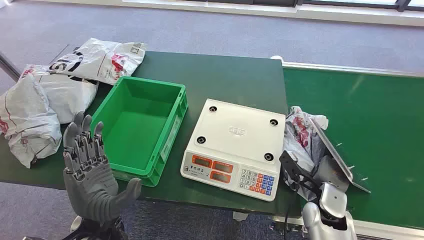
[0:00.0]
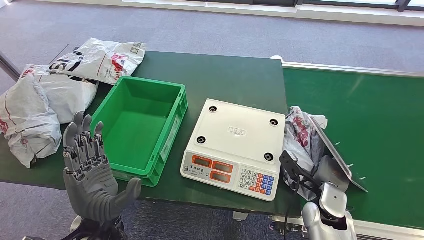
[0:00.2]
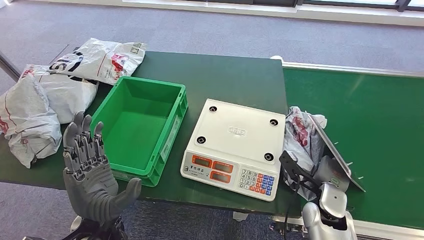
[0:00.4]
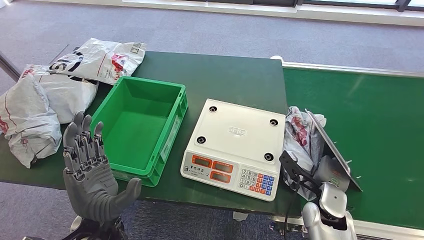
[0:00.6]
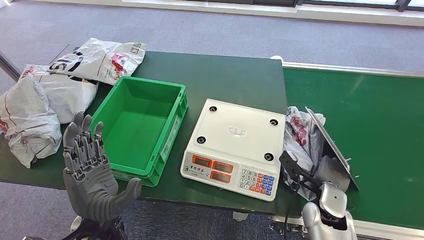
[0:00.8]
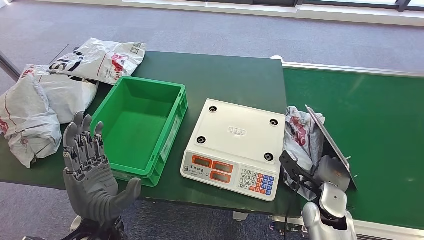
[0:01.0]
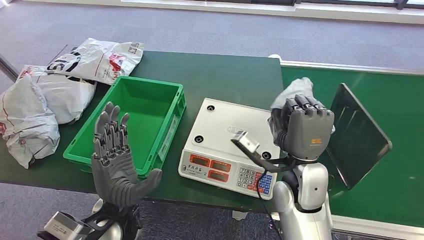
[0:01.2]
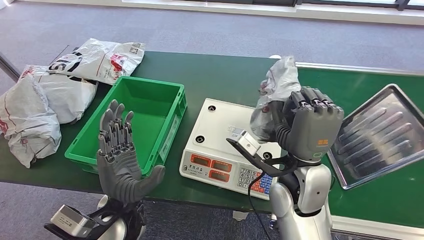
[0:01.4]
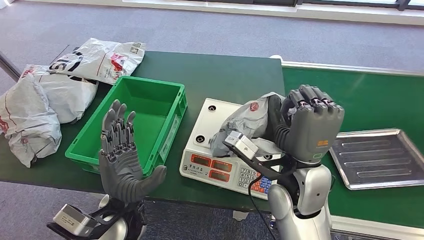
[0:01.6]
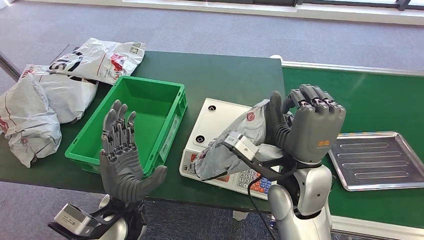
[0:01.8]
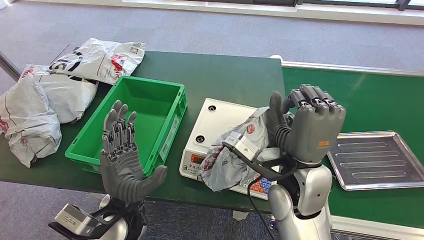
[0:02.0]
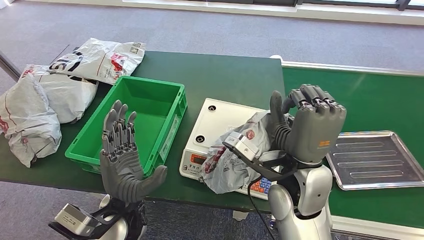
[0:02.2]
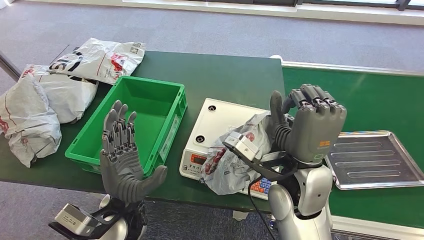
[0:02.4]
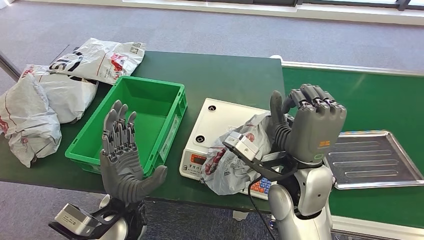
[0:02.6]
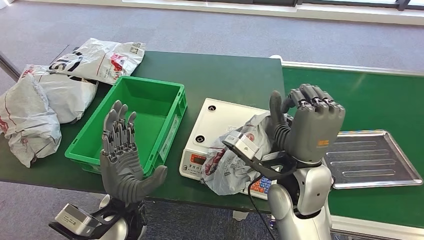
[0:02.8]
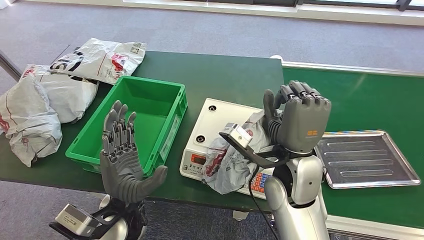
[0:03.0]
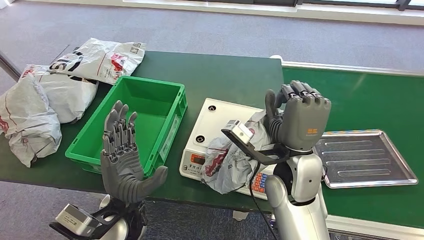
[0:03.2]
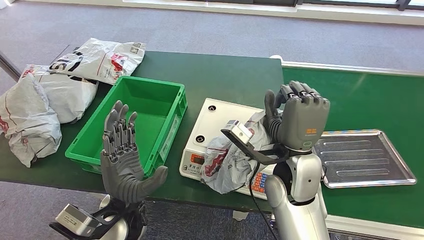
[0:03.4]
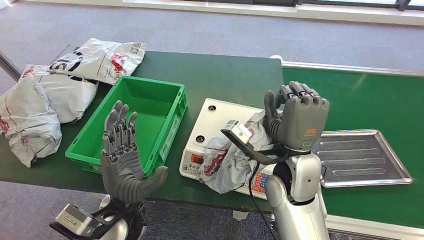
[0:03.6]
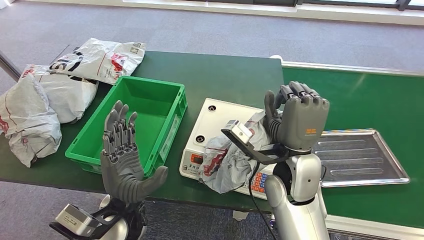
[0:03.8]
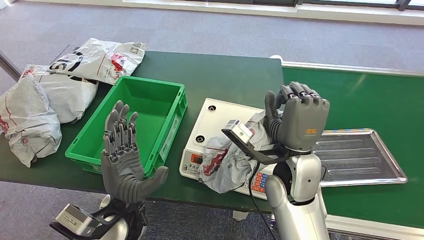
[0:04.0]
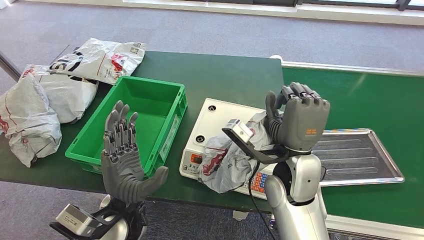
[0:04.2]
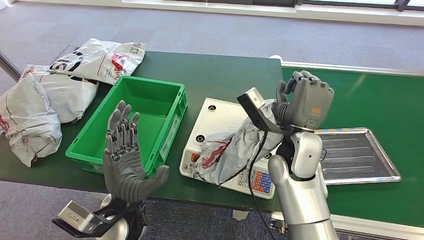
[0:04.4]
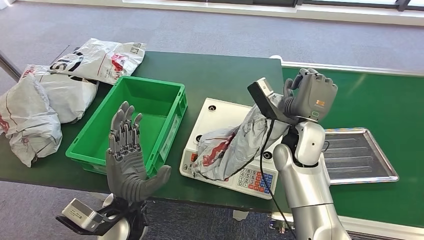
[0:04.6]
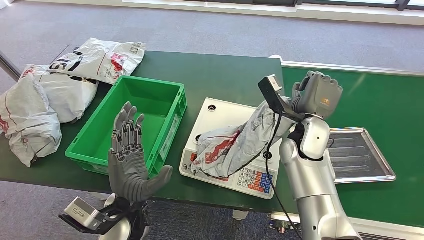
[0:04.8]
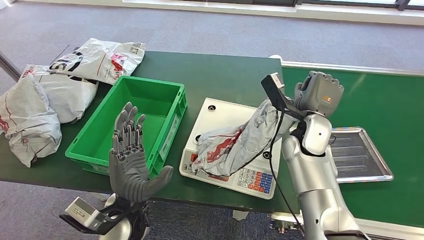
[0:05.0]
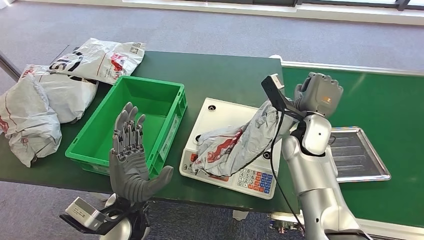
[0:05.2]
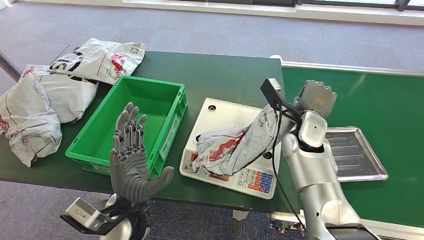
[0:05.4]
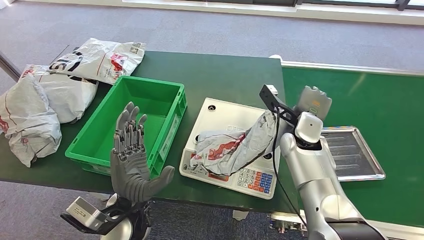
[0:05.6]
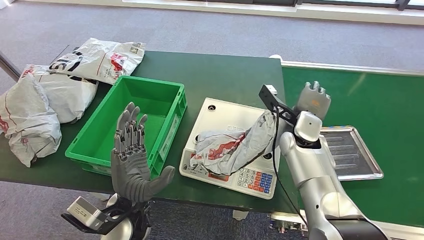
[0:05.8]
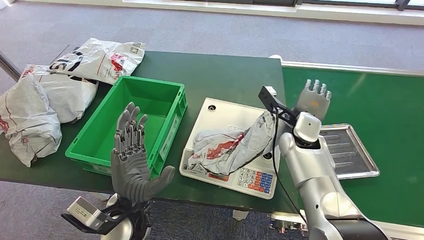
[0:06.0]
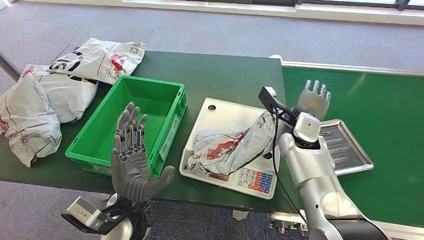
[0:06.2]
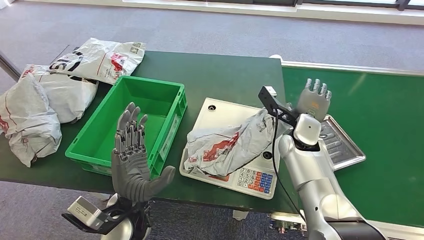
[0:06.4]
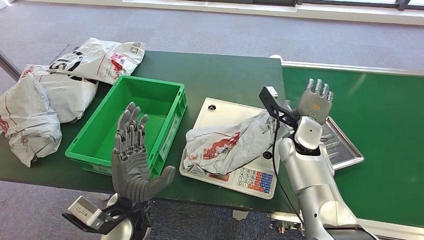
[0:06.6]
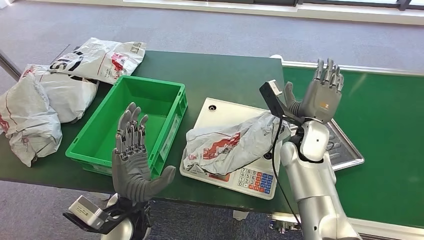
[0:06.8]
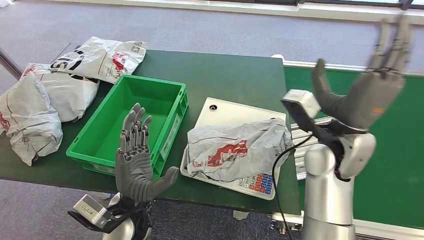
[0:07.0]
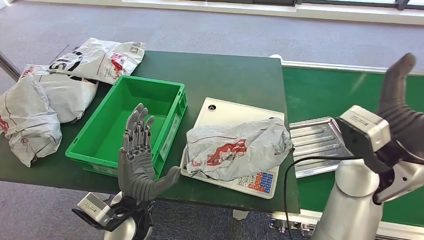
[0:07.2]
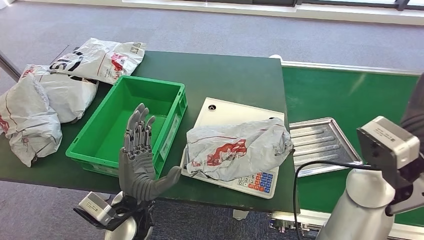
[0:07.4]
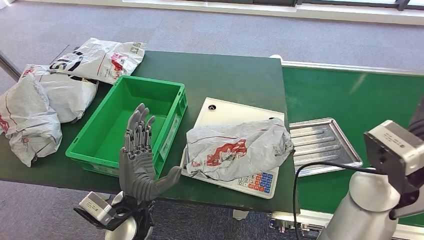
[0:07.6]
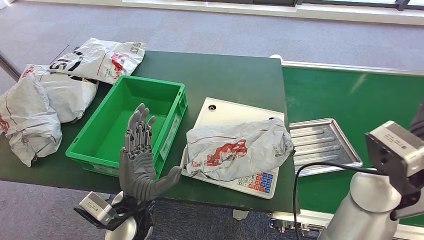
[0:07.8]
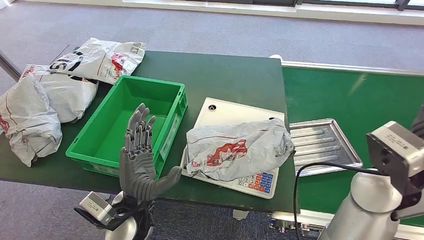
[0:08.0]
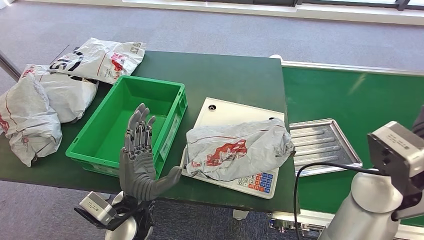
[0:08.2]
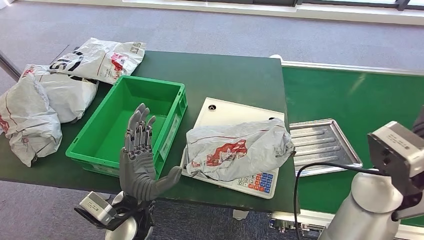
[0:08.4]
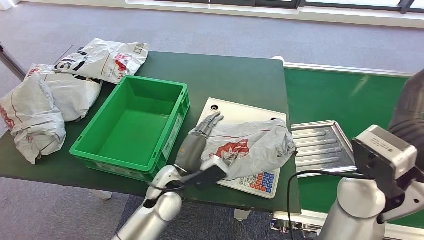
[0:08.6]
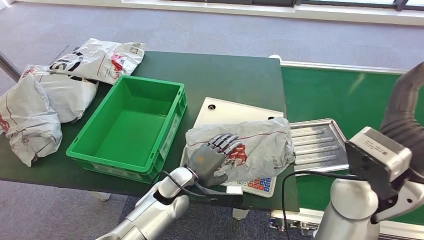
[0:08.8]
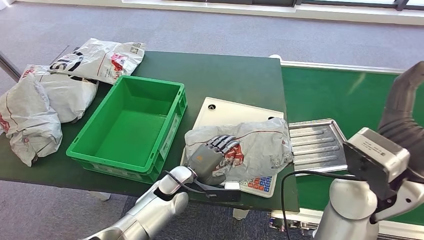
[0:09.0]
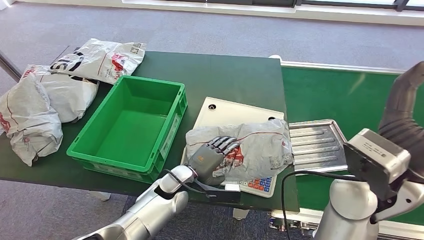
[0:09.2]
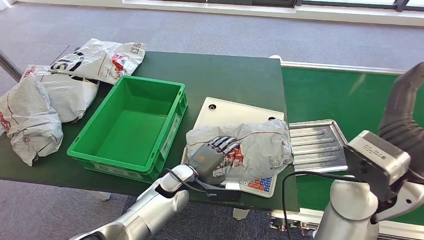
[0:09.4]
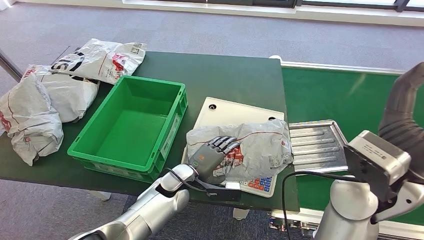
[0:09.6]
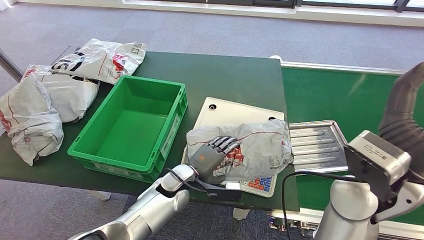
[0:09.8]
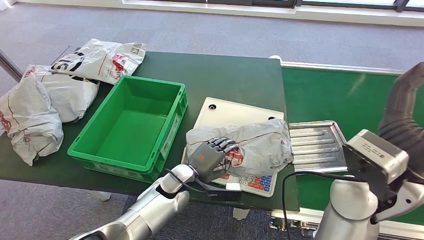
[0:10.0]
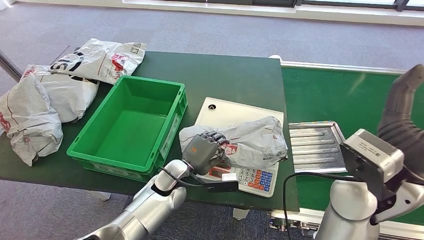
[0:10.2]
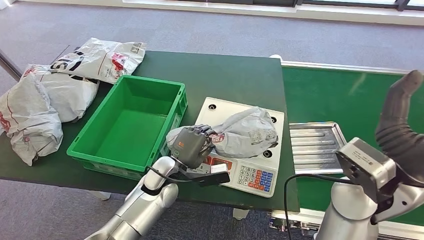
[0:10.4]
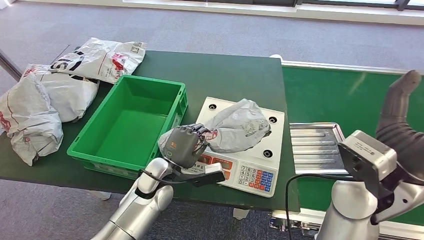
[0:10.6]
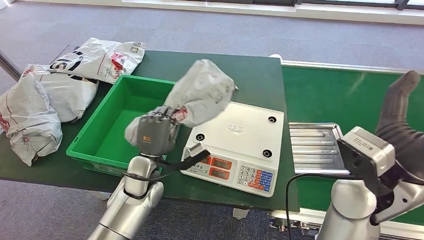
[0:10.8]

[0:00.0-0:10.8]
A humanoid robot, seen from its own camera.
Step, 0:00.0 to 0:01.4: Pick up the package from the conveyor belt.
Step, 0:01.6 to 0:07.2: Place the package onto the inbound machine.
0:01.6 to 0:03.0: The hands move only a little.
0:03.0 to 0:04.6: The right hand is displaced forward by some 10 cm.
0:04.6 to 0:06.2: The right hand is displaced forward by some 5 cm.
0:06.2 to 0:07.8: The right hand moves backward, upward and to the right, approximately 25 cm.

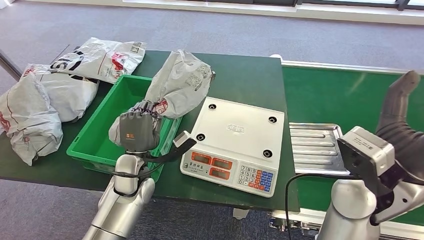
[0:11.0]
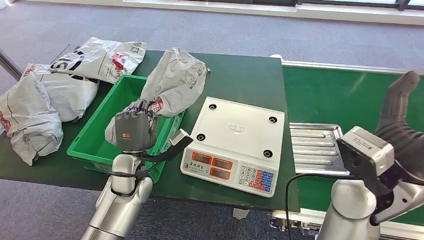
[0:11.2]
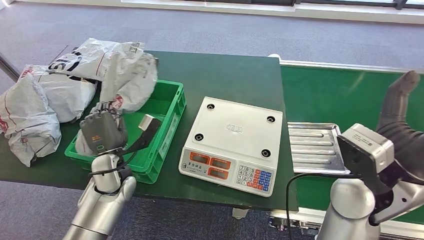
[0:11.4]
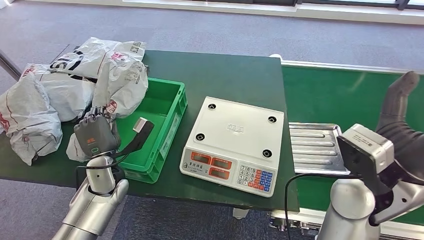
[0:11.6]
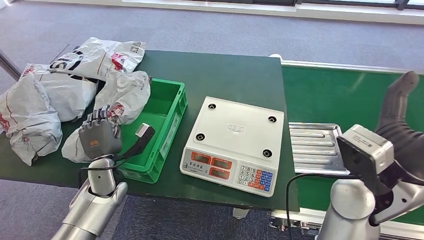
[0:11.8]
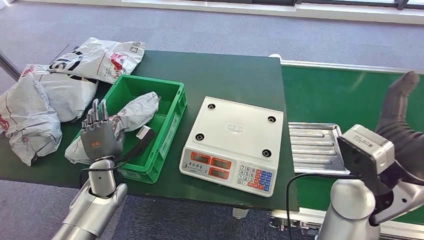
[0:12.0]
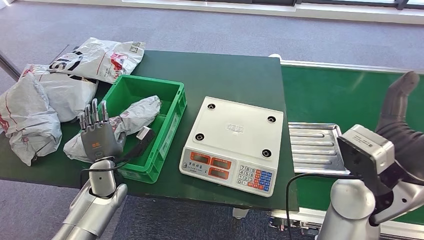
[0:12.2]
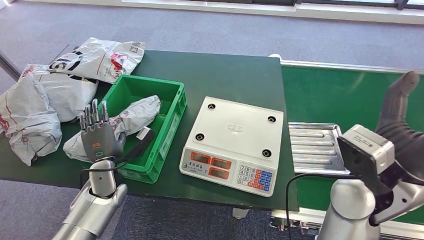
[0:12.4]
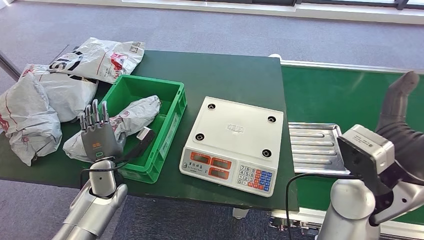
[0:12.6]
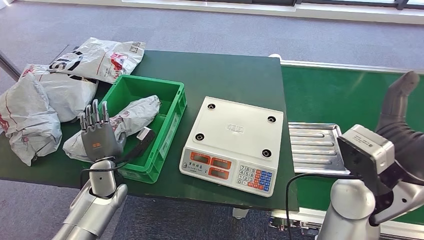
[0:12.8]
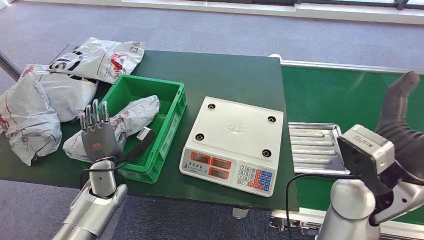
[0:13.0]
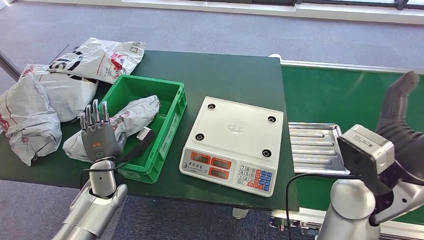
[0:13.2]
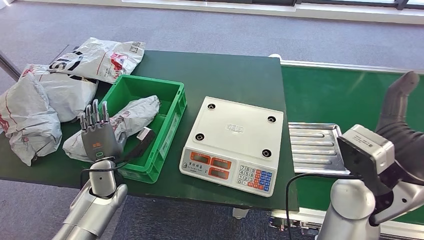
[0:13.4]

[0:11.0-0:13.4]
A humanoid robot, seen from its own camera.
Step, 0:11.2 to 0:13.4: Place the package into the parcel locker.
0:11.0 to 0:12.2: The left hand goes roughly 10 cm to the left.
0:12.2 to 0:13.4: The two hands keep their place.

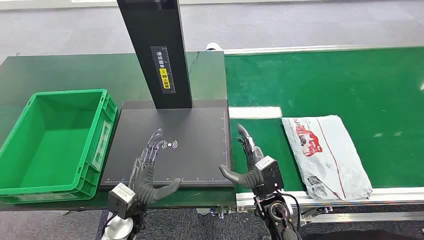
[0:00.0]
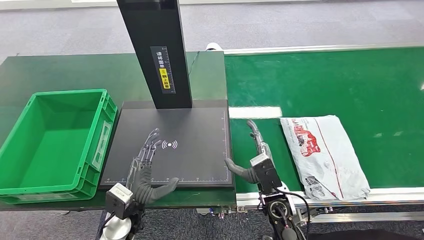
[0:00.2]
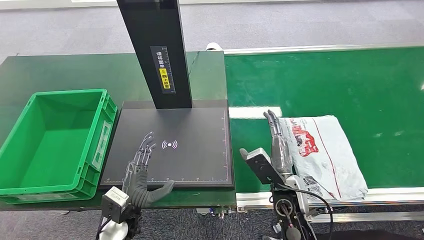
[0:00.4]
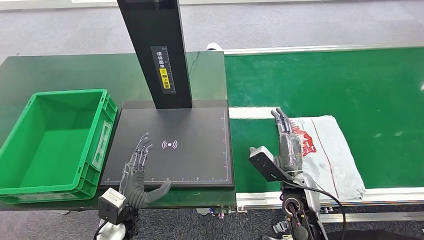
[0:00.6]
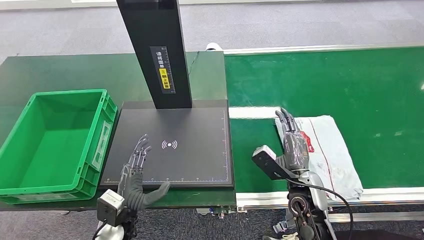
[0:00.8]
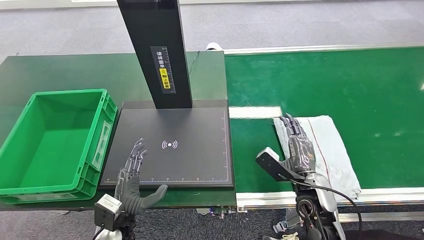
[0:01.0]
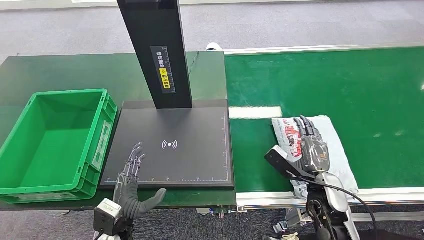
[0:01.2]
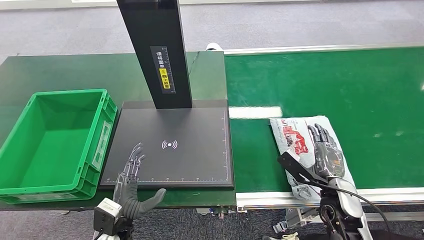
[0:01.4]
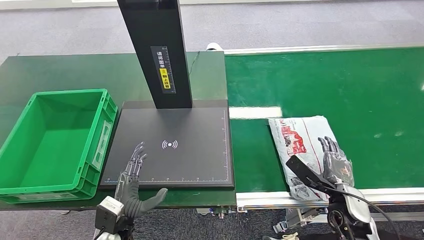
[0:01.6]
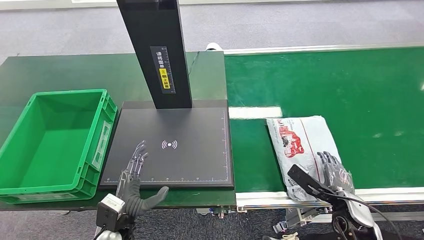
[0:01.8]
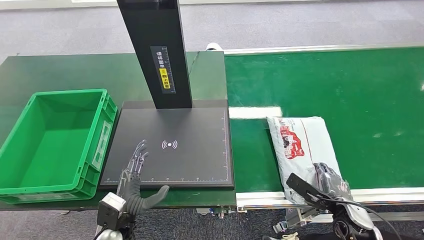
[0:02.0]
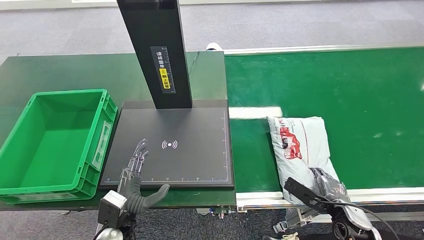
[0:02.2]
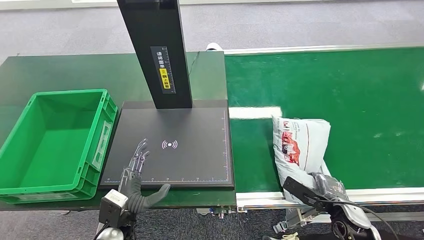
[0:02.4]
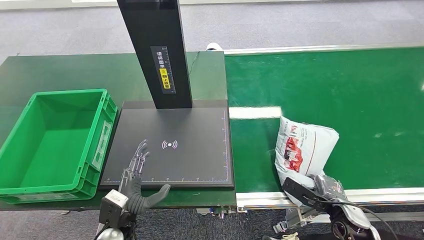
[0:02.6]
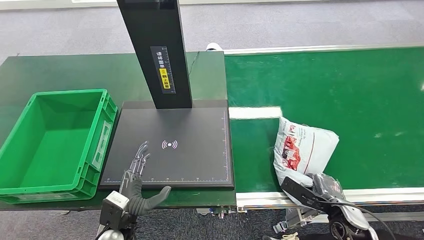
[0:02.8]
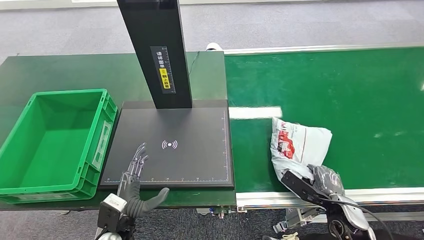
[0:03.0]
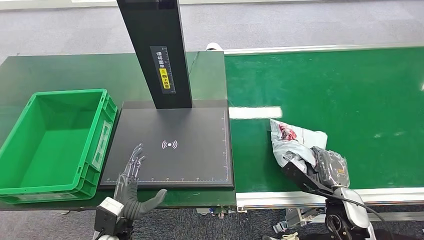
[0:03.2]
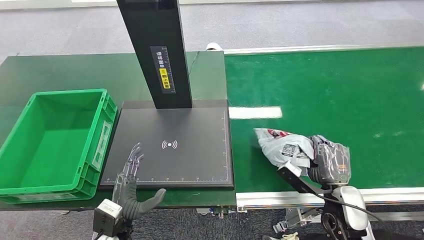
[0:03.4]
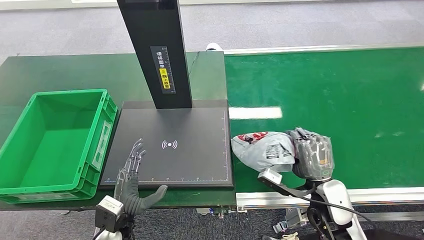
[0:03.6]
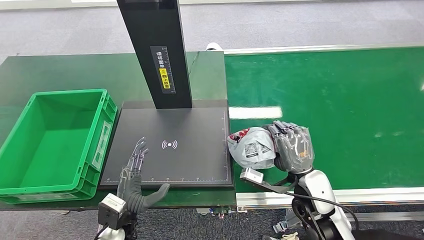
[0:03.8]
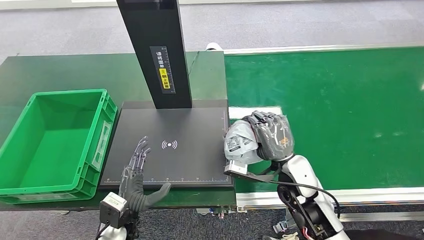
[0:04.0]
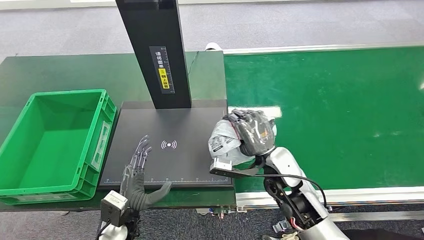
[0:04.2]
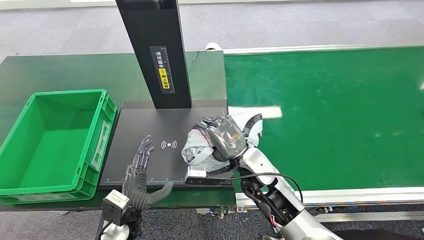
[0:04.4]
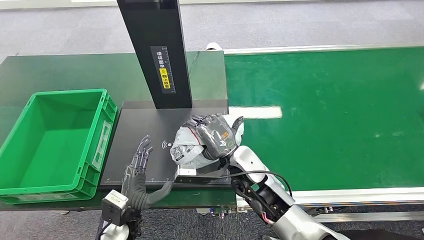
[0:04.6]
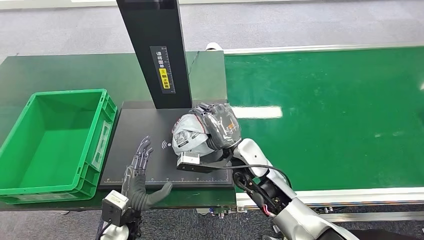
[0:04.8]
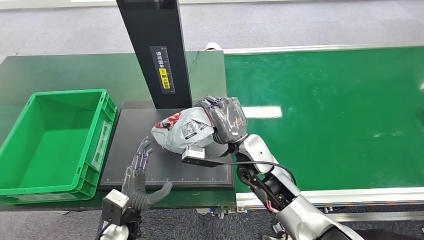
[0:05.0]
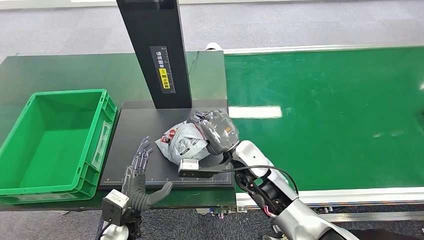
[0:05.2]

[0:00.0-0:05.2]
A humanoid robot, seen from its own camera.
Step, 0:00.0 to 0:03.4: Pick up the package from the conveyor belt.
0:01.8 to 0:03.4: The right hand moves some 5 cm.
0:03.4 to 0:05.2: The right hand heads to the left and forward, covering about 25 cm.
